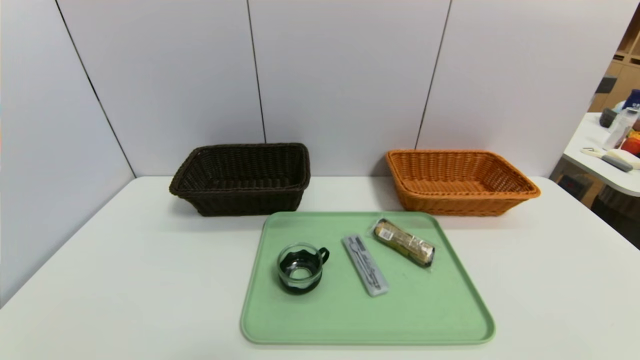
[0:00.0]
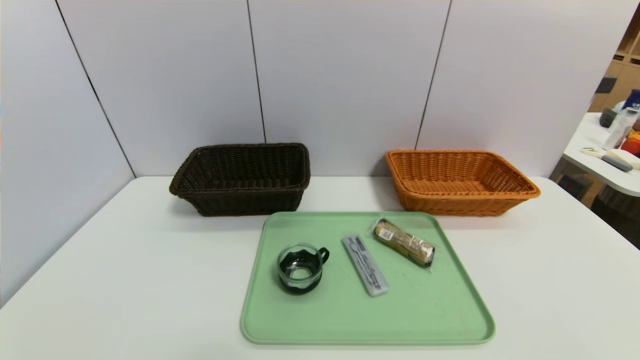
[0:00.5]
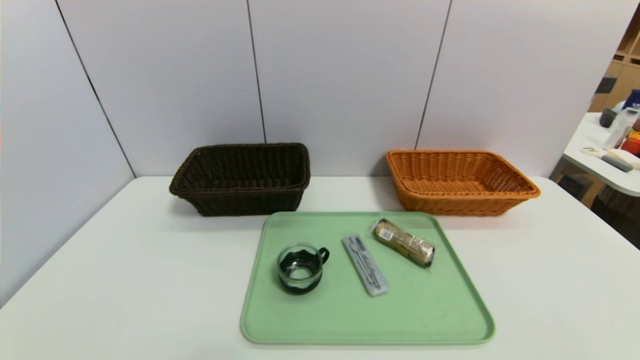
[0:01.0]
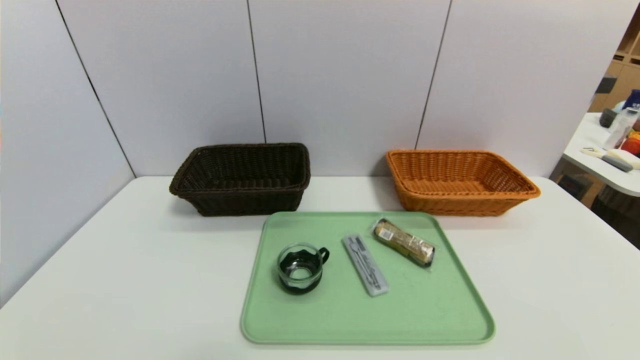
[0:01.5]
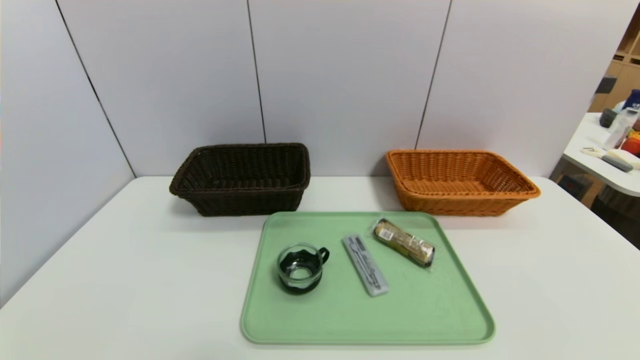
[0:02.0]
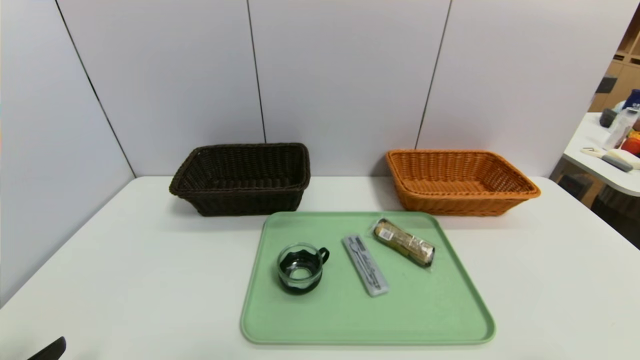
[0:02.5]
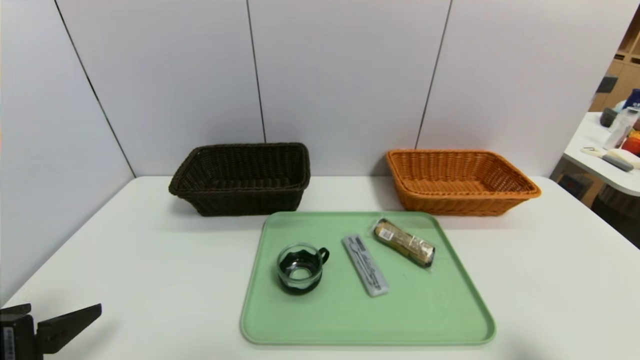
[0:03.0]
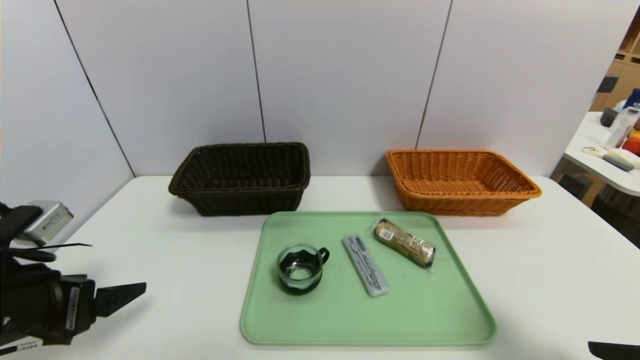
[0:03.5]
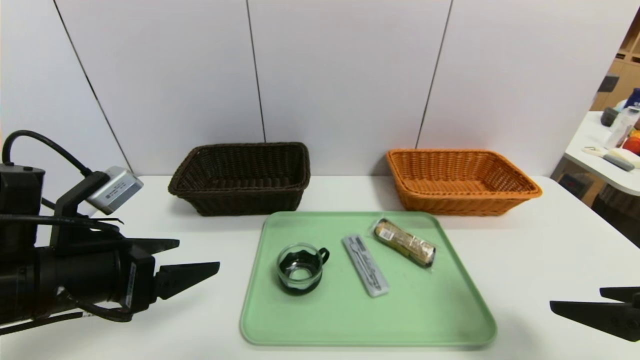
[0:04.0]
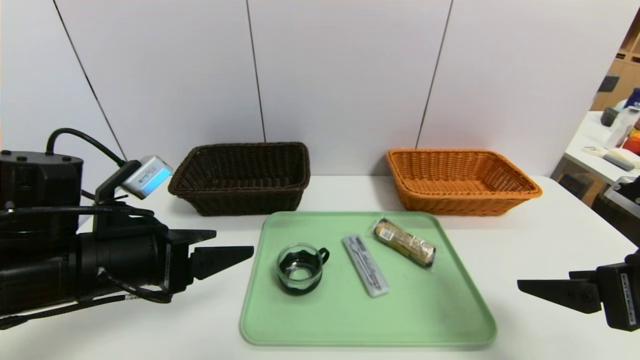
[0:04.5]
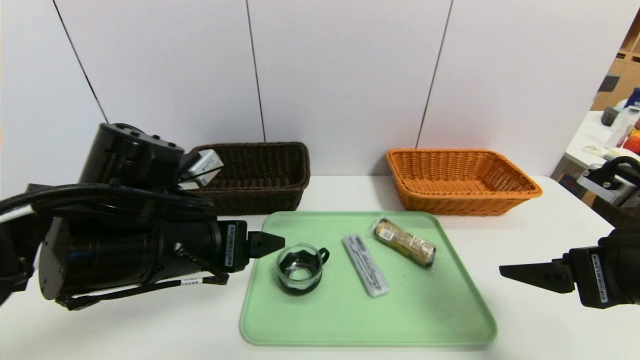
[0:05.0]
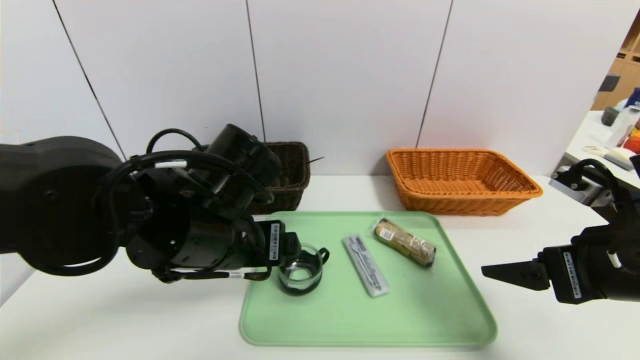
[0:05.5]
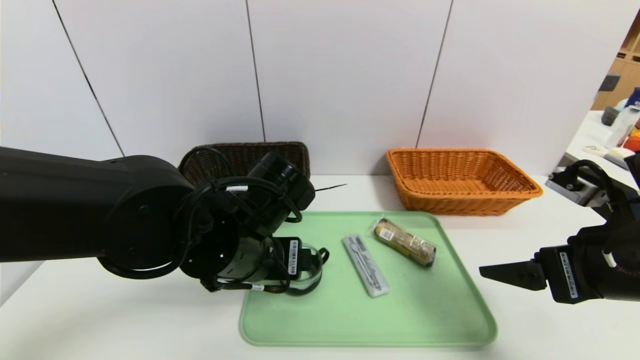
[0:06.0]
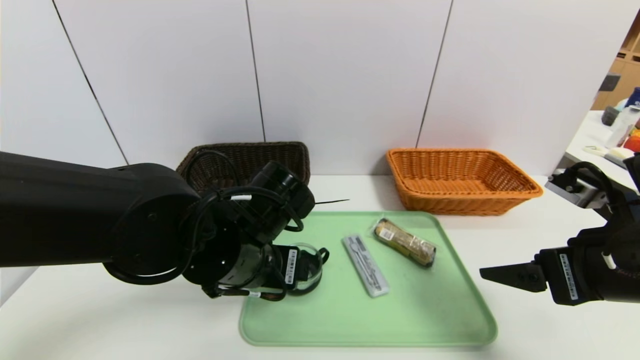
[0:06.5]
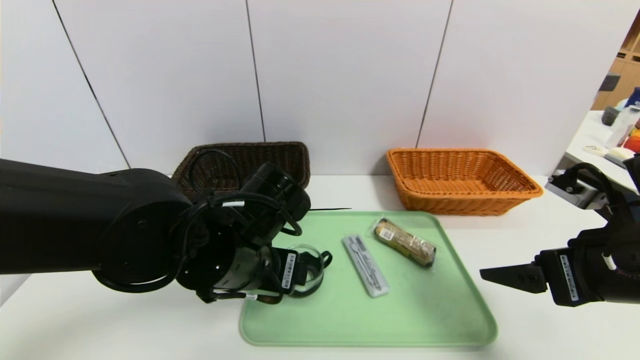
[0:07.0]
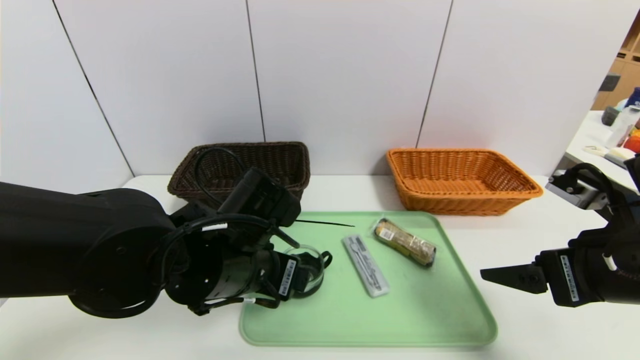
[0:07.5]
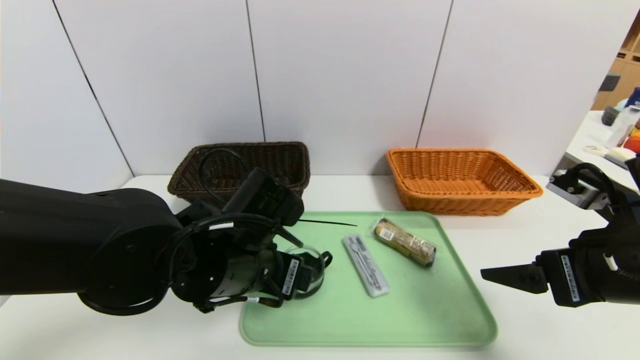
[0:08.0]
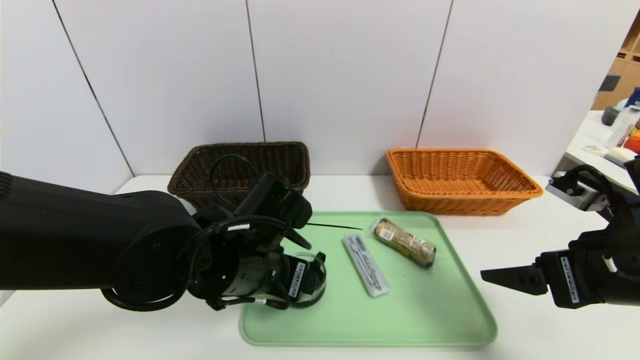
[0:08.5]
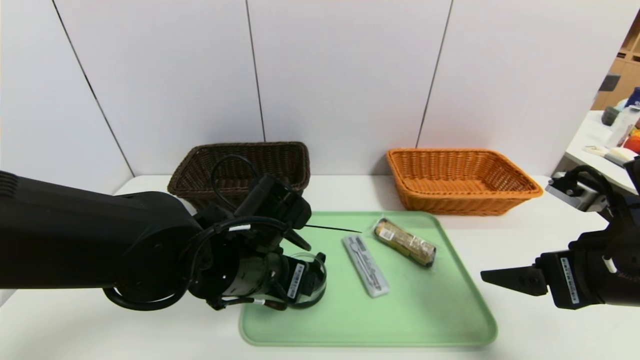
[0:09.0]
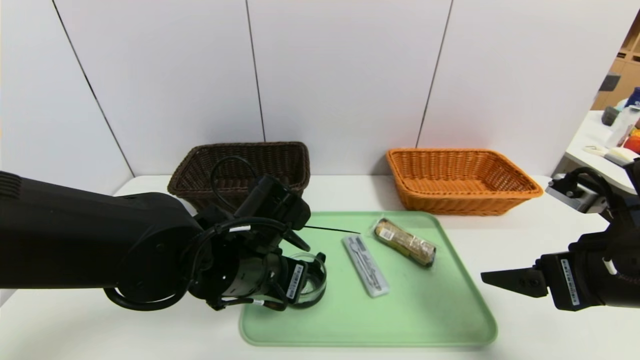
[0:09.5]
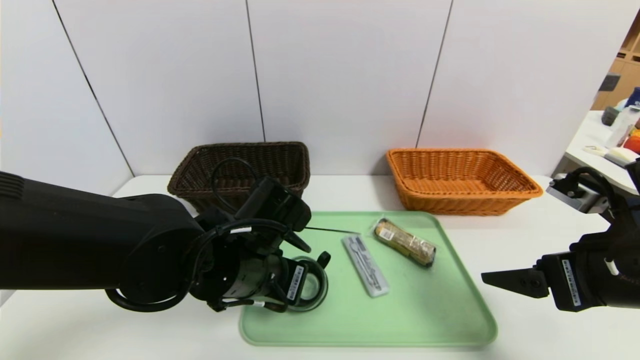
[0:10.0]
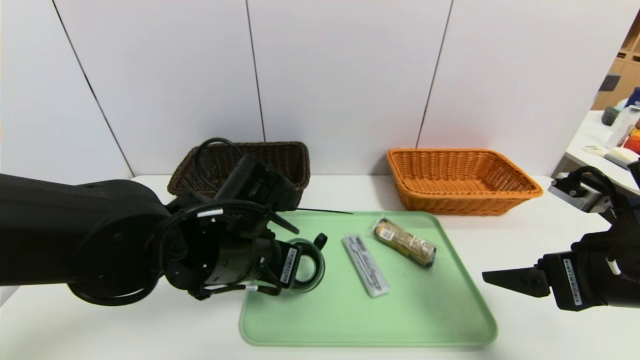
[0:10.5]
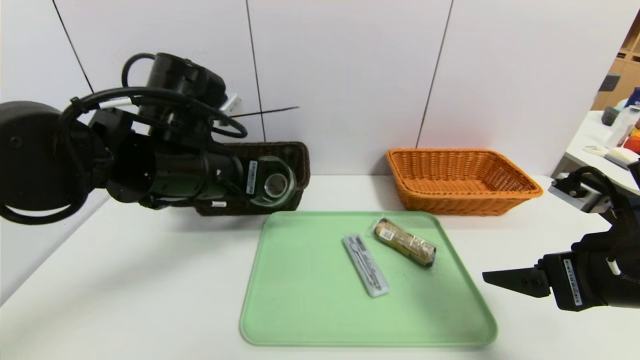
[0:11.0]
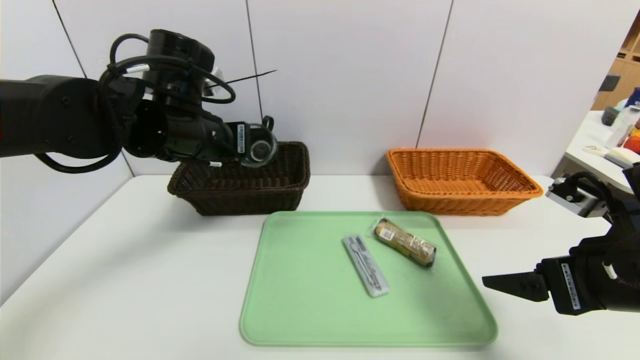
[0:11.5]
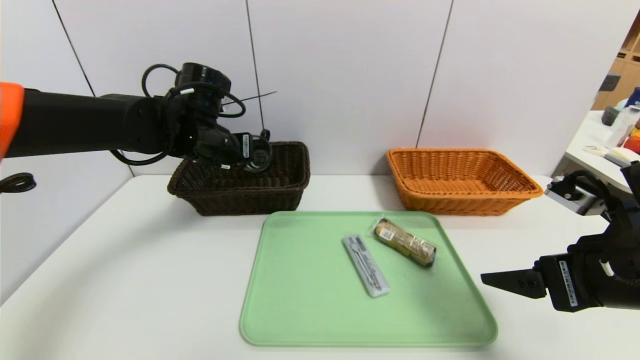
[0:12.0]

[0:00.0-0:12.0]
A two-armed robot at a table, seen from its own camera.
Task of the whole recording: place the food in the right basket with the right gripper, and place the non food items in the left basket with the left gripper.
0:02.0 to 0:04.0: The two grippers go roughly 20 cm forward and upward.
0:04.0 to 0:06.0: The right gripper moves forward, some 5 cm. The left gripper travels to the right by some 15 cm.
0:06.0 to 0:08.0: The grippers make only small movements.
0:08.0 to 0:10.0: The left gripper closes its fingers.
0:10.0 to 0:12.0: The left gripper travels forward, to the left and upward by about 20 cm.

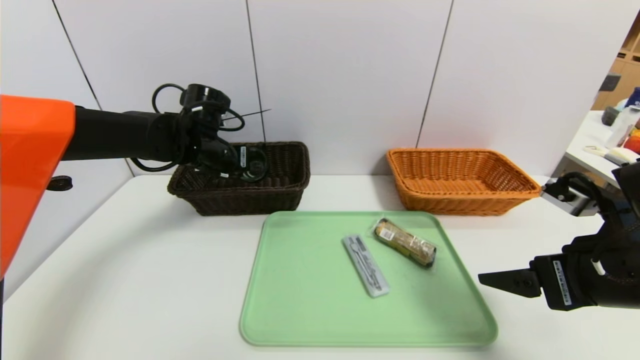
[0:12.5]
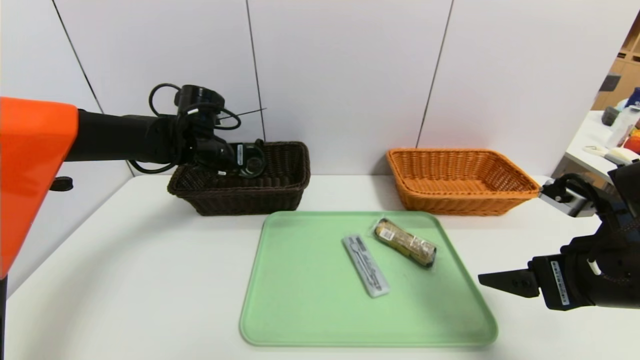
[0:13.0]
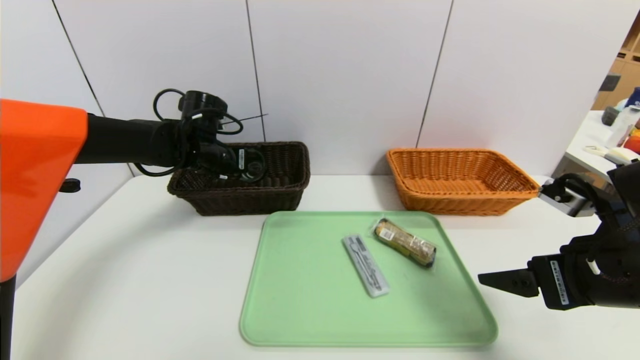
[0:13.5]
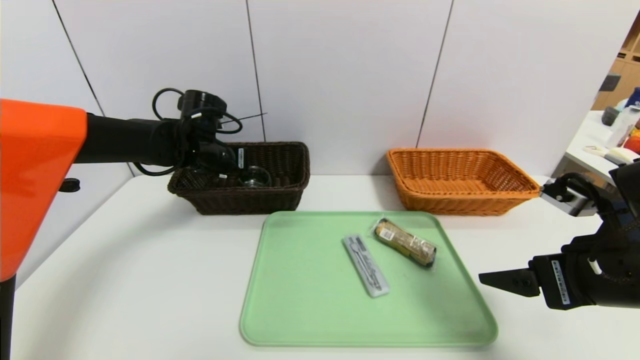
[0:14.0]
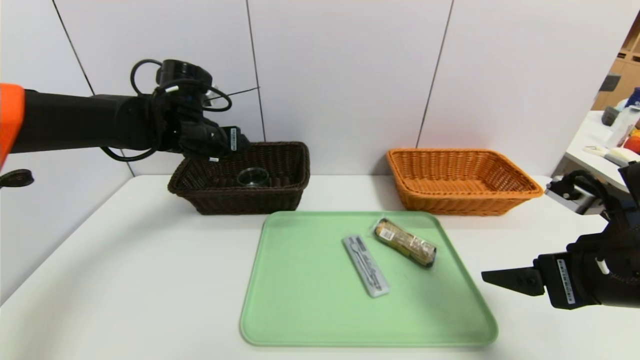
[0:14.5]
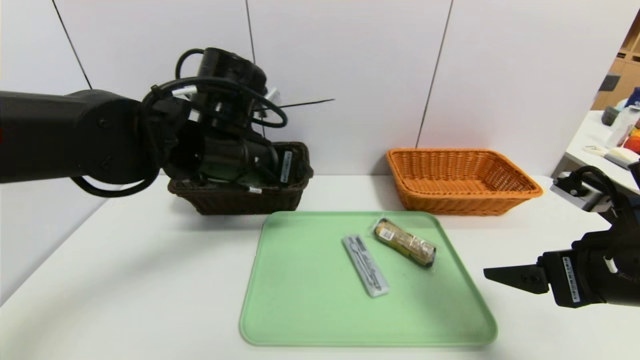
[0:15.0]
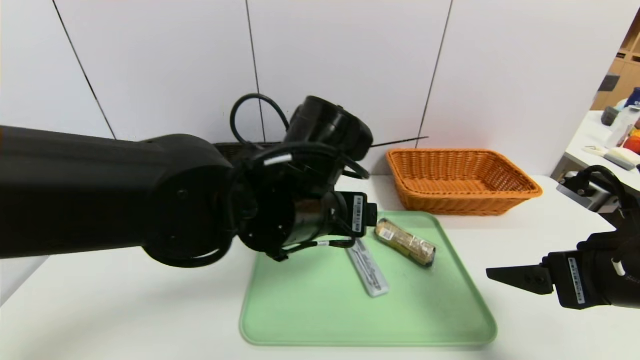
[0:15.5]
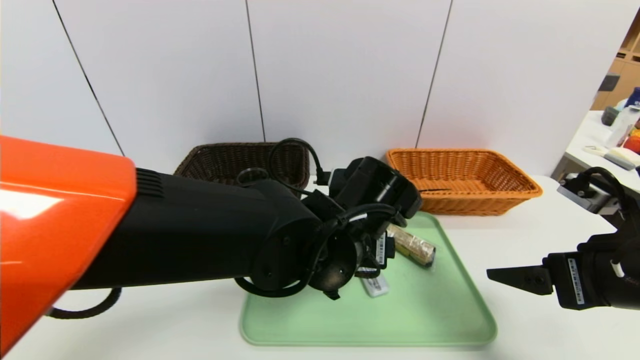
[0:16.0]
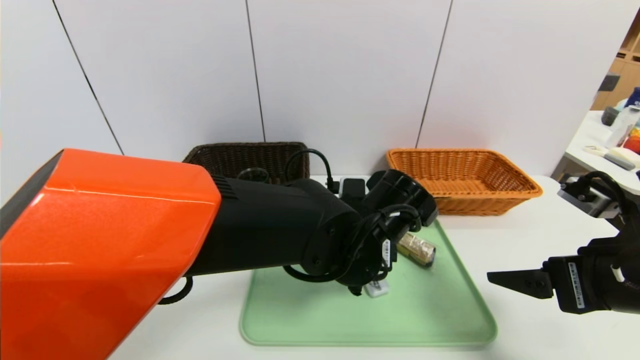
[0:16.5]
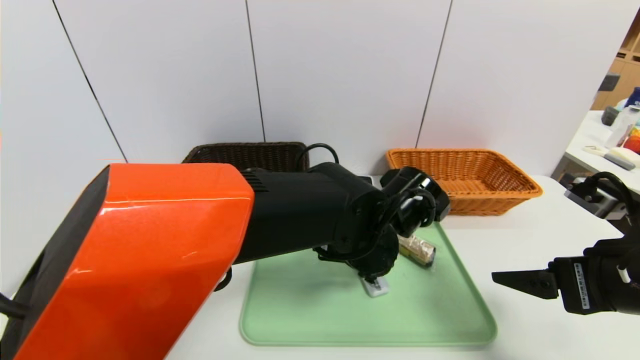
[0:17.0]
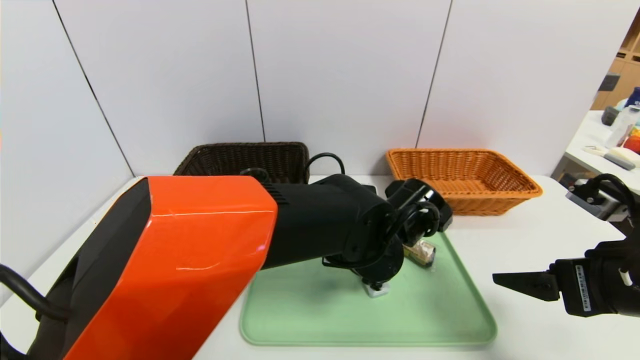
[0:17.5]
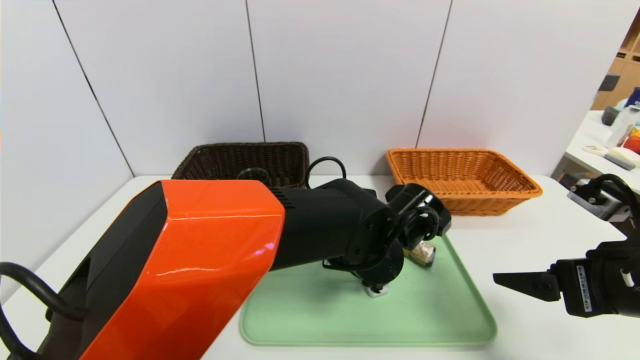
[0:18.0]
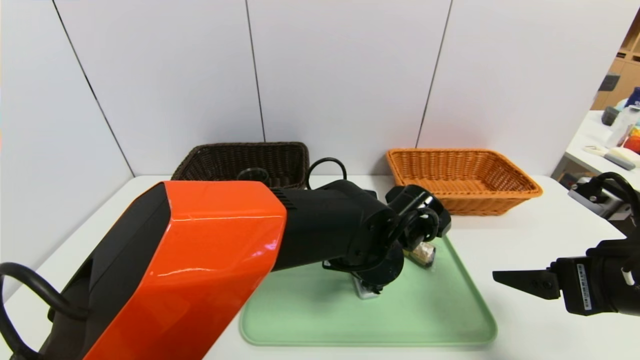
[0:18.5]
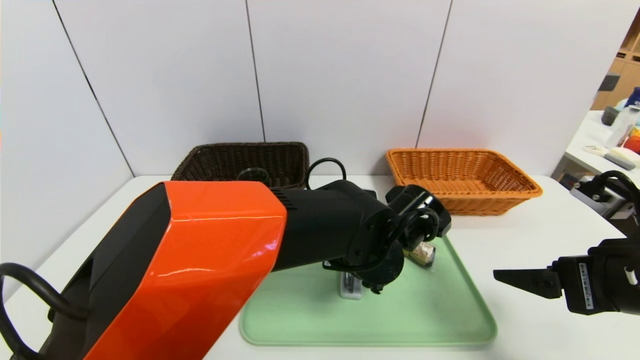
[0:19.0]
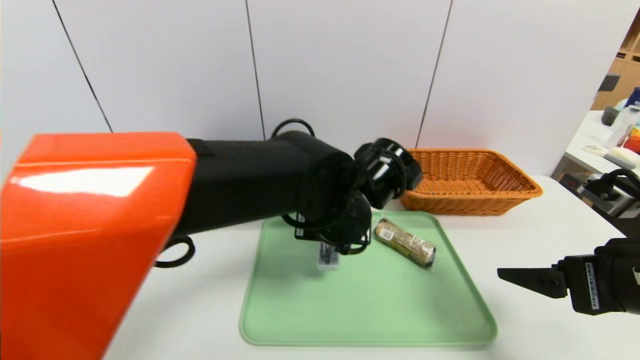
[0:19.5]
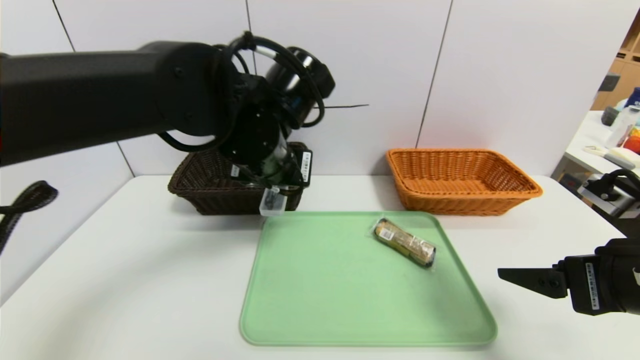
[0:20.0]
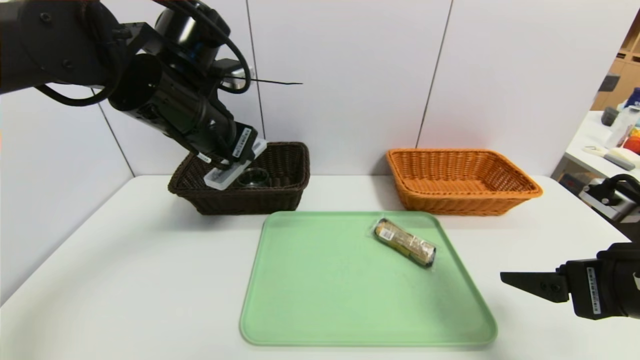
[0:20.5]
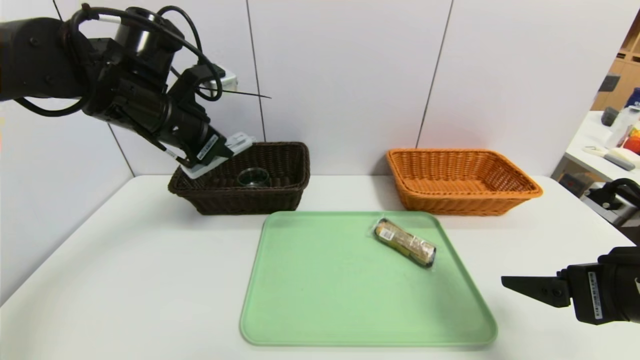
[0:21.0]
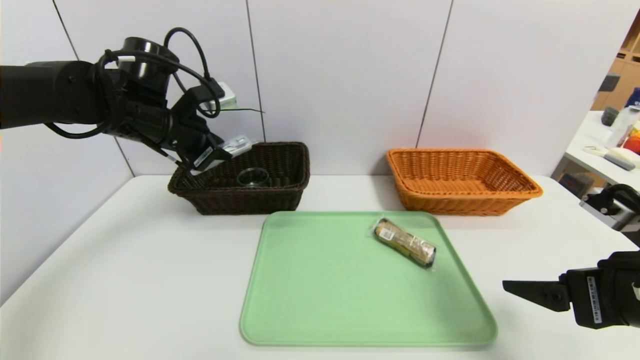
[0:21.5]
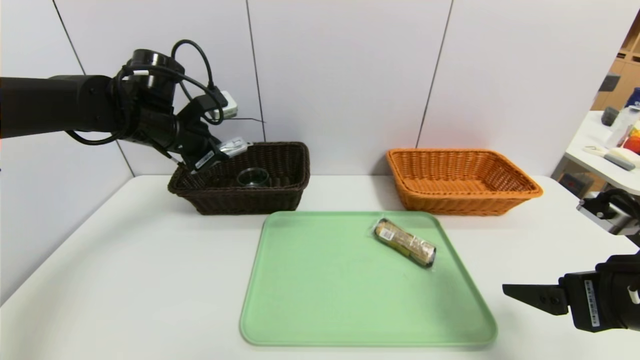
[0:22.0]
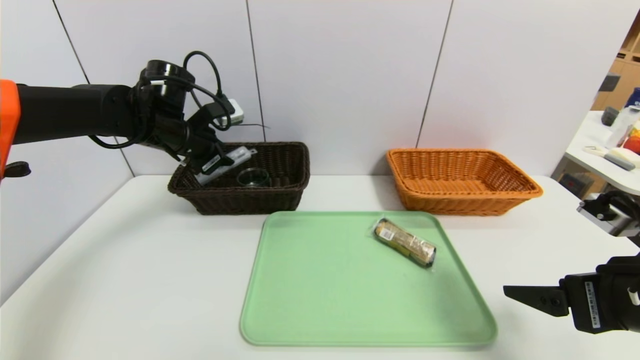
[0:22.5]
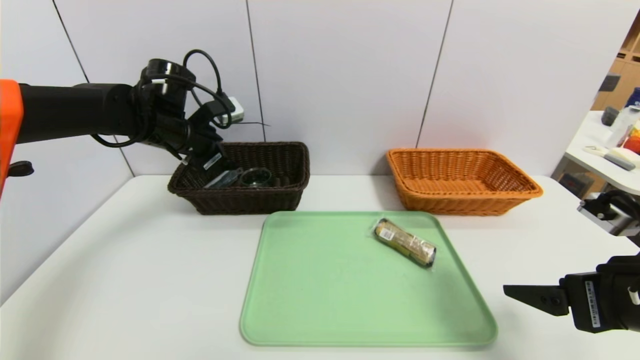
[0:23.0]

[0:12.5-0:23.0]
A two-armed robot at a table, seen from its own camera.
Task of the whole recording: place the food in the right basket with the right gripper, and place the non food items in the left basket with the left gripper.
0:12.5 to 0:14.5: The left gripper opens.
0:14.5 to 0:16.5: The left gripper heads to the right and backward, covering about 30 cm.
0:16.5 to 0:19.0: The left gripper closes its fingers.
0:19.0 to 0:21.0: The left gripper goes approximately 30 cm to the left and upward.
0:21.0 to 0:23.0: The left gripper goes about 10 cm forward and downward, and opens.
